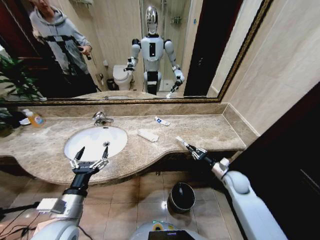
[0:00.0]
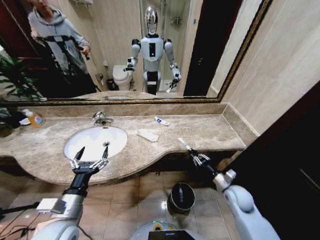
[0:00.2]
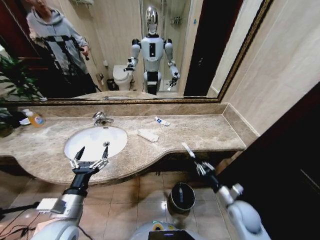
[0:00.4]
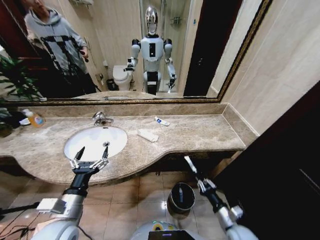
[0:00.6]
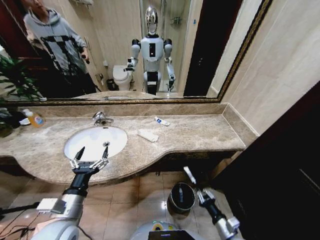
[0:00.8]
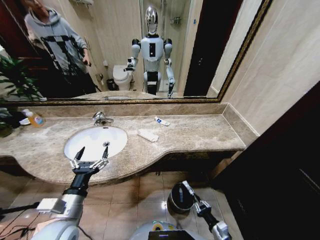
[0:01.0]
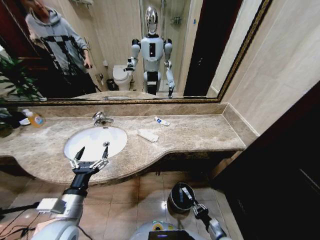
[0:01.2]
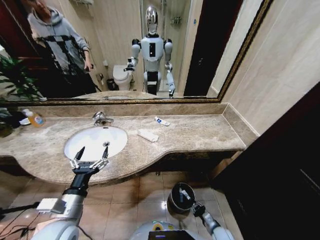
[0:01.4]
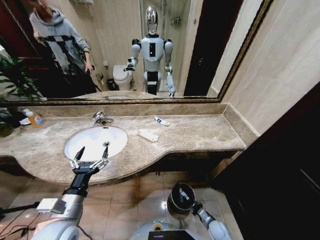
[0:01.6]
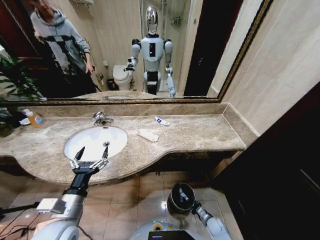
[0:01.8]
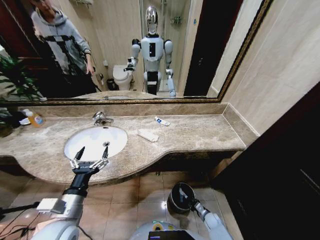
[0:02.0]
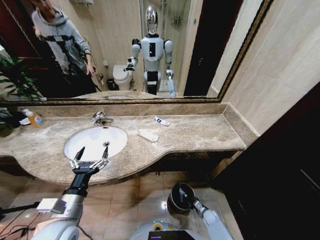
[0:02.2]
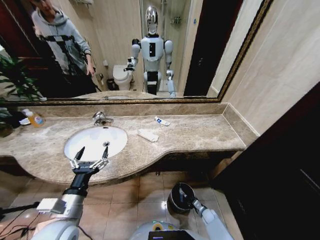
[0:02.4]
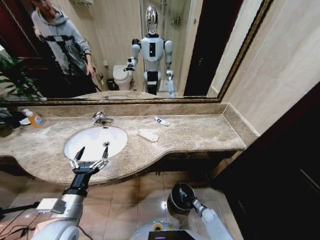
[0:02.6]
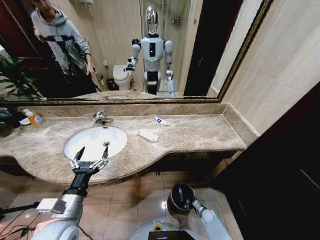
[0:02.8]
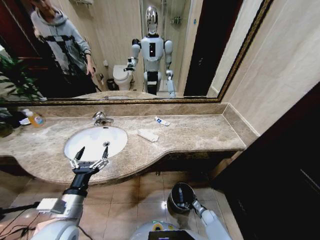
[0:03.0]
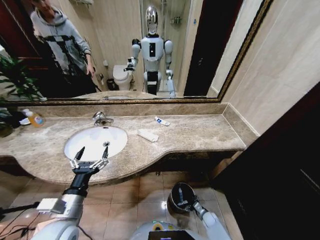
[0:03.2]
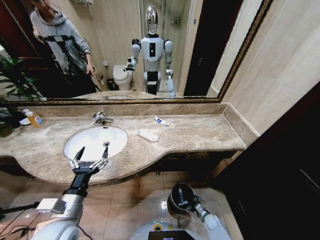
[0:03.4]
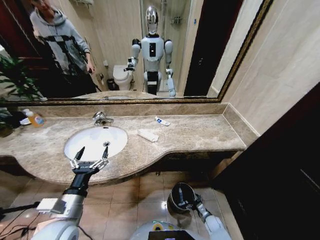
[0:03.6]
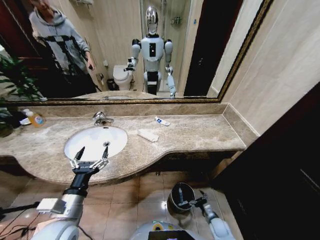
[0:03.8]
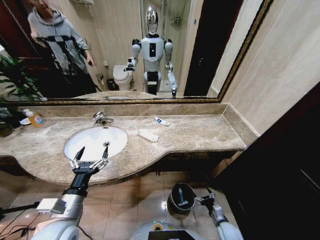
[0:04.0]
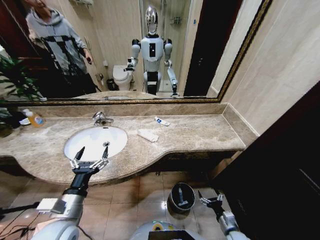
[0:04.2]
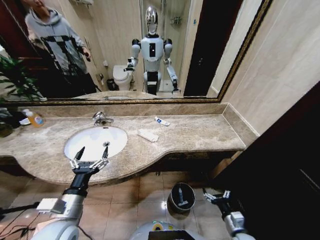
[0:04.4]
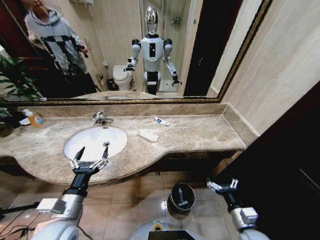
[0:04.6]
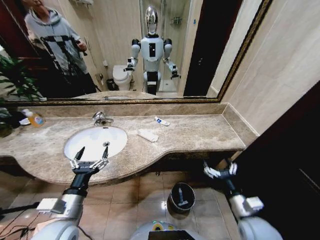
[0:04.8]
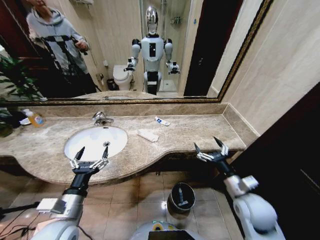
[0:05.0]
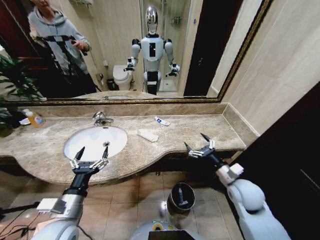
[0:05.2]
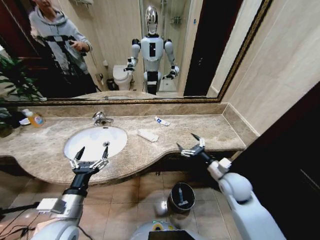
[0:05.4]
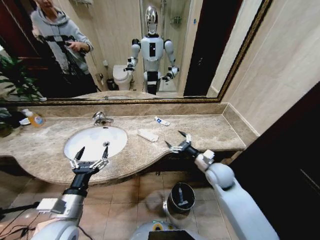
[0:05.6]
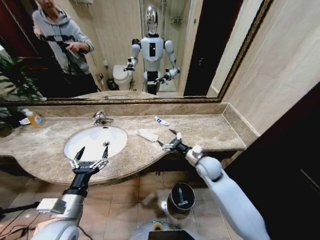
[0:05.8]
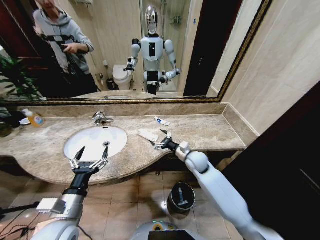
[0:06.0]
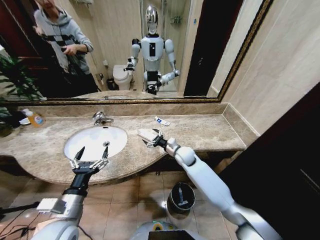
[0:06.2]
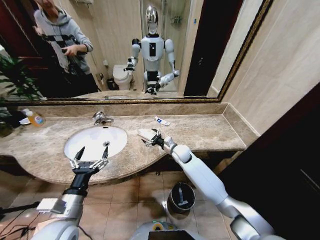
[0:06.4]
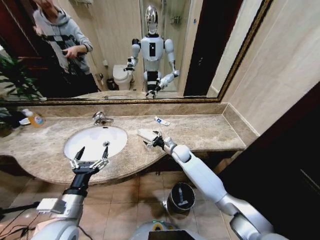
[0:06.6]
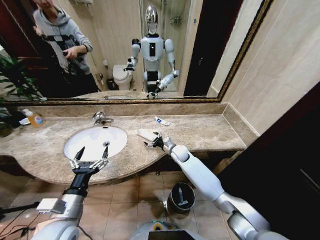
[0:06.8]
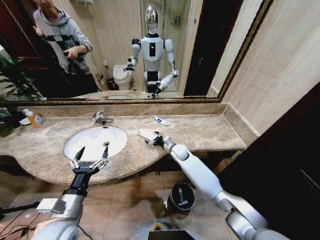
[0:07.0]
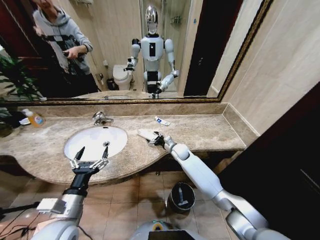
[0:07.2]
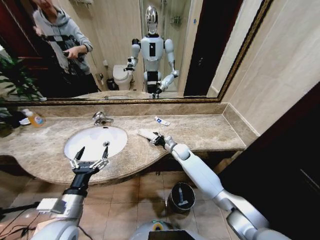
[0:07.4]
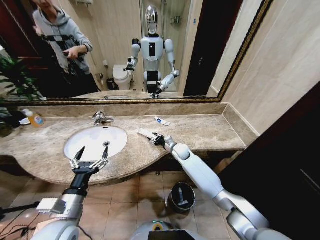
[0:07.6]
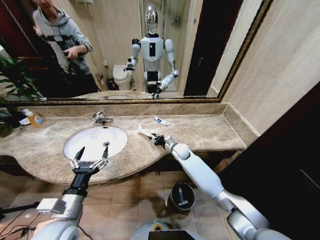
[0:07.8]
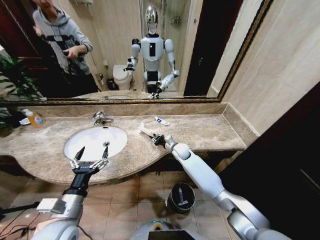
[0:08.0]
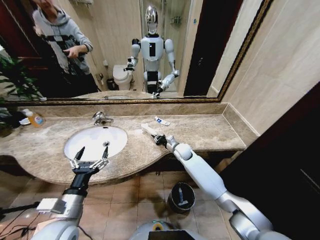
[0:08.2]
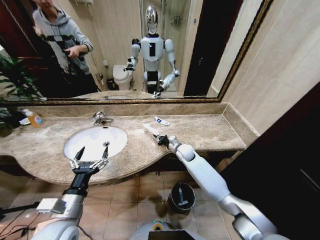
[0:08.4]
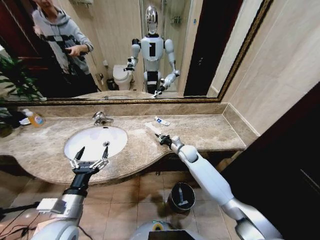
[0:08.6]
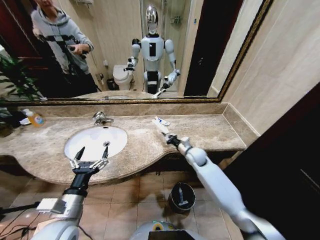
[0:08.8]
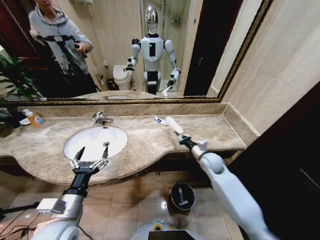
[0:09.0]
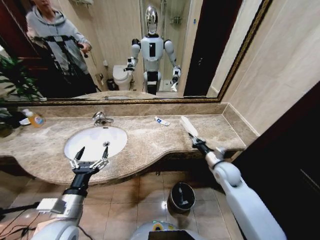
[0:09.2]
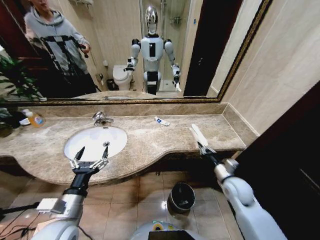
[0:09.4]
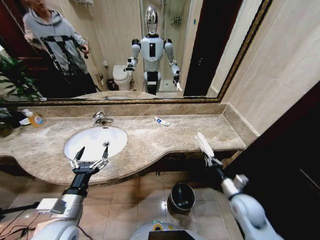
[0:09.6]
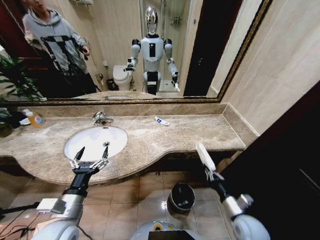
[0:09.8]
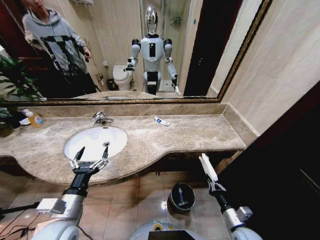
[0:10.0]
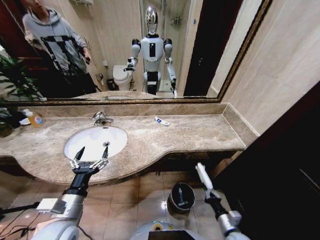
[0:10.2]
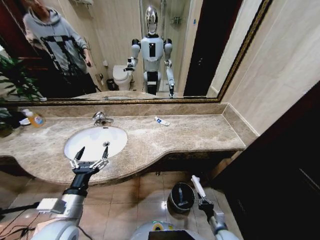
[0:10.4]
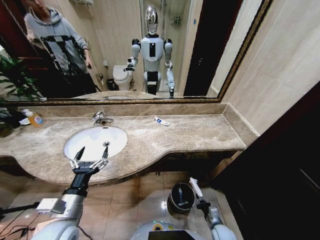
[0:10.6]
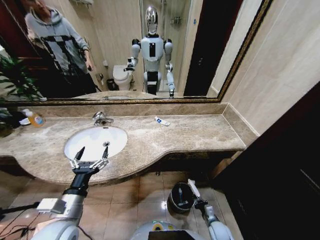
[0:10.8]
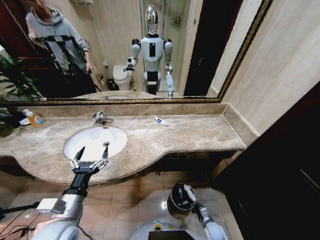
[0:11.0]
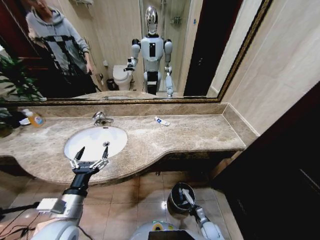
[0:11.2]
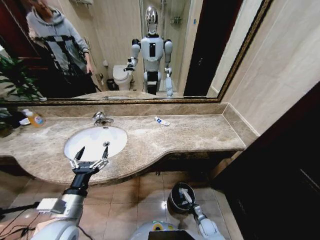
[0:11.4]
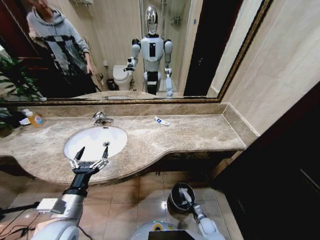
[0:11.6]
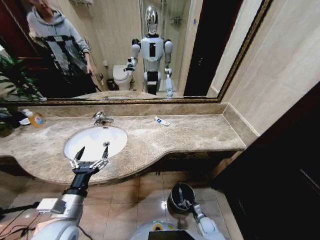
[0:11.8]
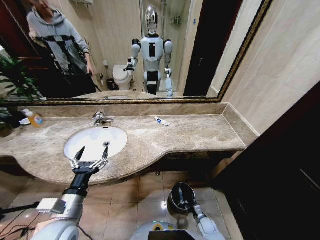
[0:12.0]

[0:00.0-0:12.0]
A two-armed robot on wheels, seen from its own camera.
Task of the whole recording: Pick up the trash from the sink and place it in the trash bin.
0:00.0 to 0:01.6: The right gripper moves downward and backward, about 30 cm.
0:01.6 to 0:03.0: The right gripper goes approximately 10 cm forward and downward, and opens up.
0:03.0 to 0:04.4: The right gripper is displaced upward and backward by some 25 cm.
0:04.4 to 0:06.0: The right gripper travels forward, upward and to the left by some 35 cm.
0:06.0 to 0:07.6: The right gripper goes approximately 10 cm forward and downward, and closes its fingers.
0:07.6 to 0:09.0: The right gripper shifts roughly 15 cm to the right and backward, and closes its fingers.
0:09.0 to 0:10.4: The right gripper heads backward and downward, covering approximately 35 cm.
0:10.4 to 0:12.0: The right gripper moves downward and forward, roughly 15 cm, and opens up.

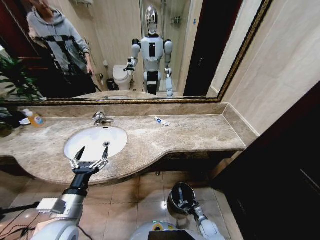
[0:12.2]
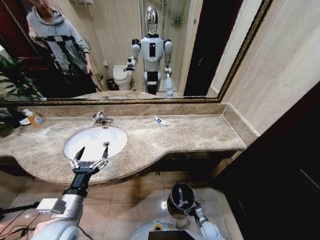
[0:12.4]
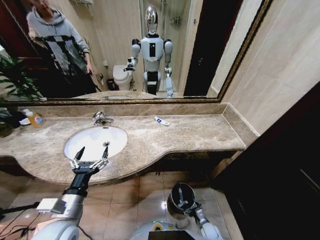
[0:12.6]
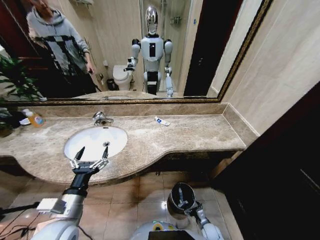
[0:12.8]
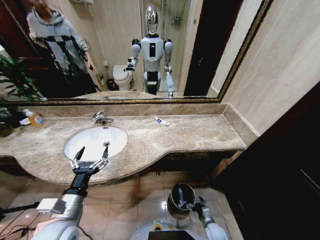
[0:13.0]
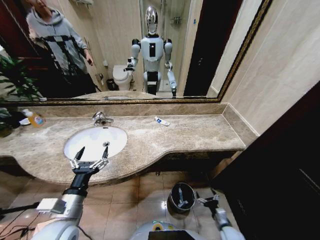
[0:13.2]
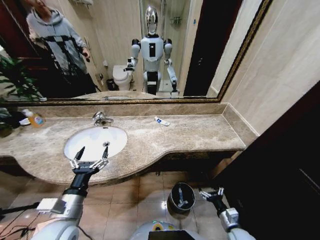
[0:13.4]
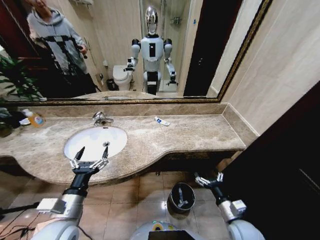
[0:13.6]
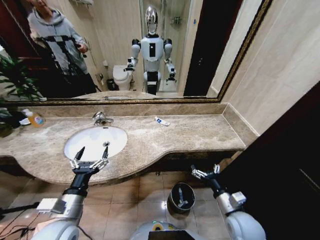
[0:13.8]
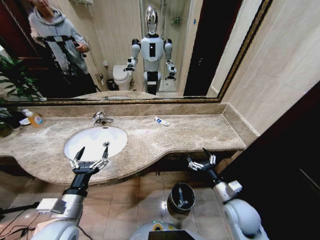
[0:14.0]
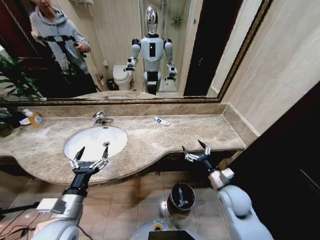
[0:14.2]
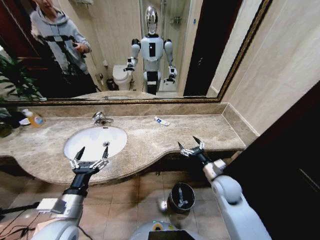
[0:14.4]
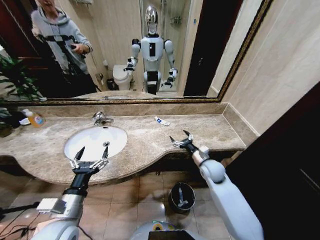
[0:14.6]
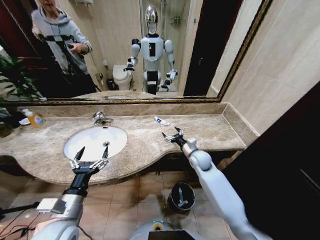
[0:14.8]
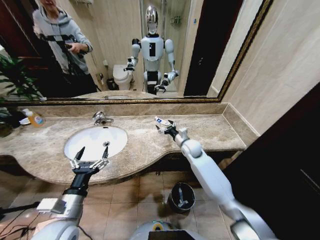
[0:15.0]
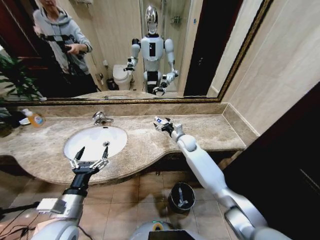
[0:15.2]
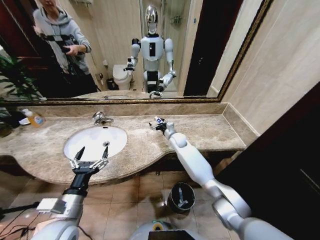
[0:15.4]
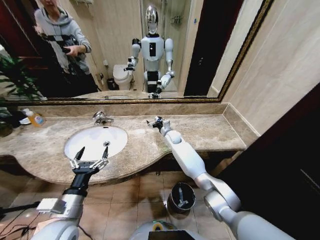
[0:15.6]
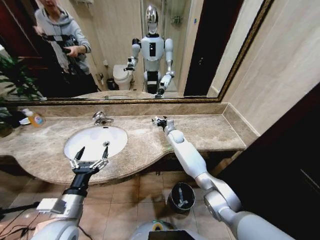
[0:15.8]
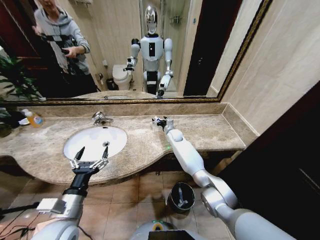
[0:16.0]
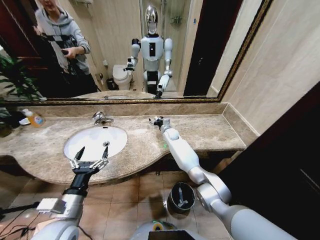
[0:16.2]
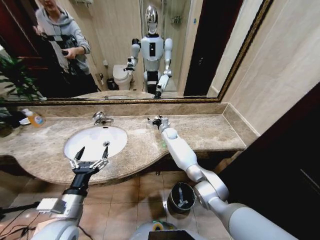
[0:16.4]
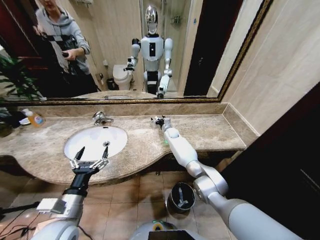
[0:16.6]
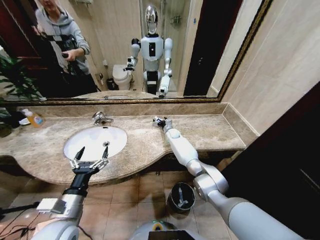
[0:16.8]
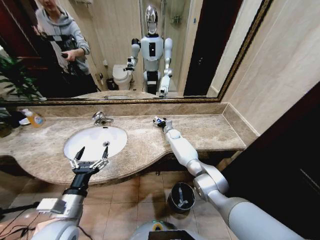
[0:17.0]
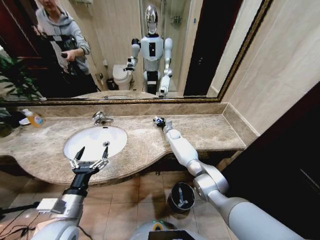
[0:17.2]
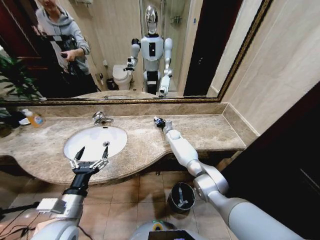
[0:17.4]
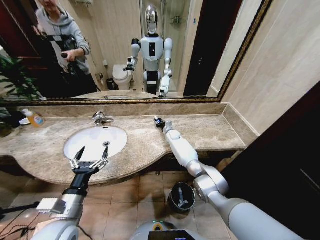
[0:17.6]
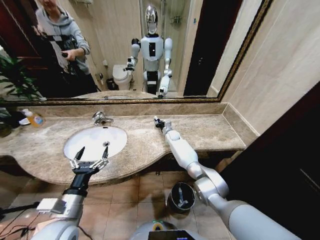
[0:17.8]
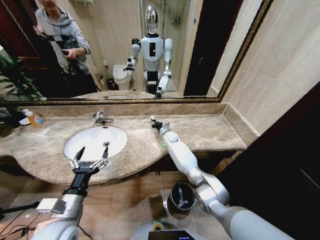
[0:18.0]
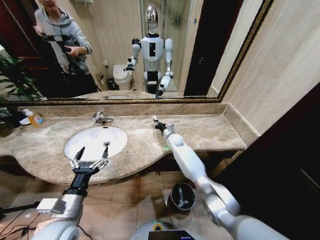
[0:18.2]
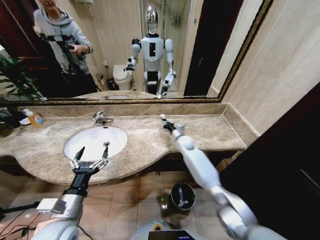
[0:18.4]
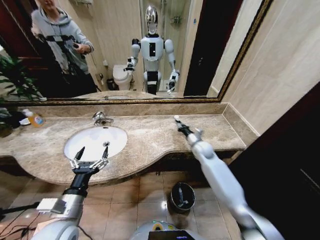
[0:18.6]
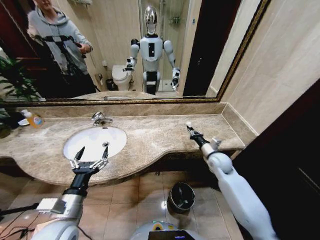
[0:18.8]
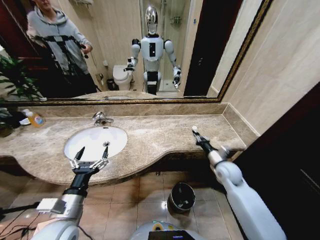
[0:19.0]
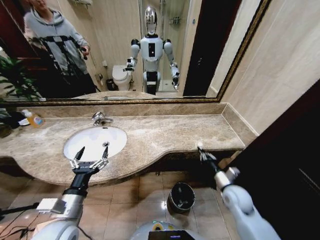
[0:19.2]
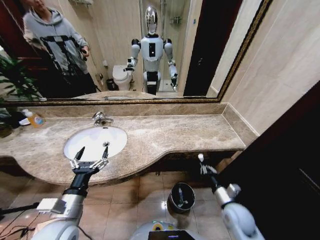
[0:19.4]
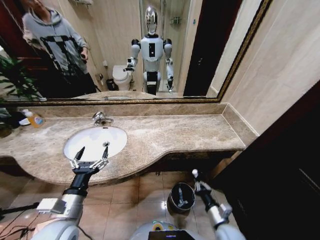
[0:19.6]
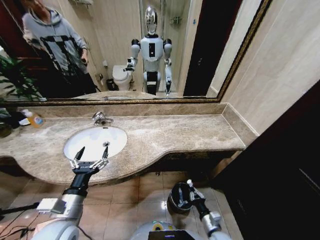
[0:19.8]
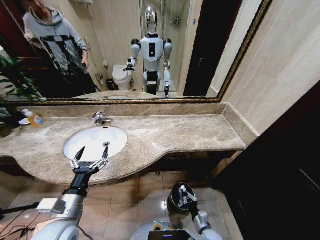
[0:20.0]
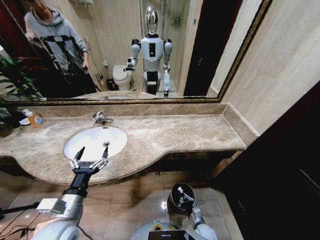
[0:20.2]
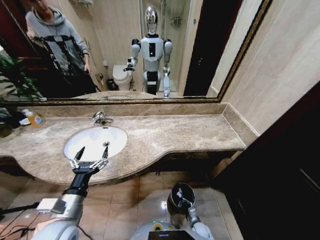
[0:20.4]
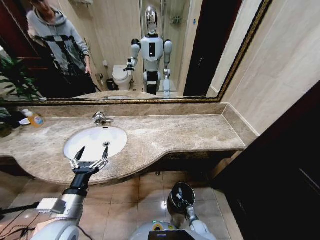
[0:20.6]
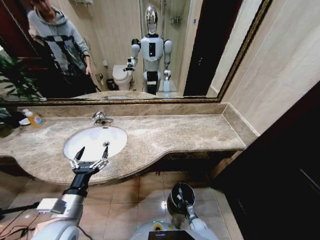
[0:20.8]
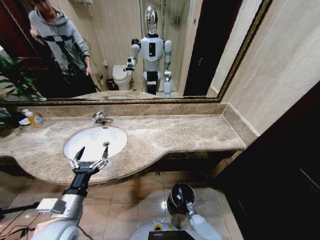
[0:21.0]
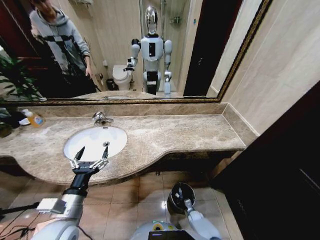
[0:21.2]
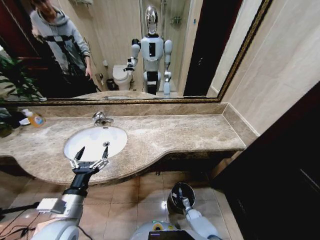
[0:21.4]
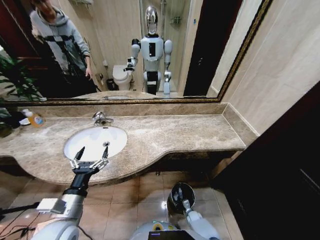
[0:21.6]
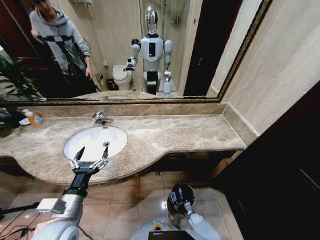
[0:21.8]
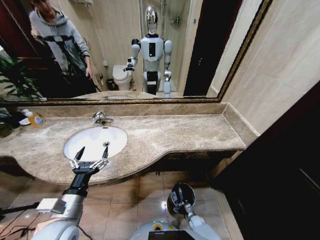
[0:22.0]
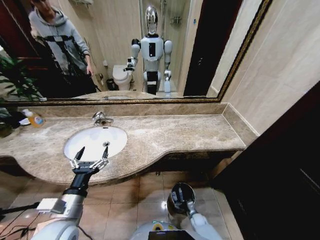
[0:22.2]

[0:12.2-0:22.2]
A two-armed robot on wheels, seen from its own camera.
Task of the whole recording: Pick up the trash from the sink and place it in the trash bin.
0:12.2 to 0:13.6: The right gripper travels upward by approximately 25 cm.
0:13.6 to 0:15.0: The right gripper goes roughly 35 cm forward.
0:15.0 to 0:16.4: The right gripper travels forward and to the left by roughly 15 cm.
0:16.4 to 0:18.0: The right gripper closes its fingers.
0:18.0 to 0:19.4: The right gripper heads backward and to the right, covering some 50 cm.
0:19.4 to 0:20.8: The right gripper heads downward, covering roughly 35 cm.
